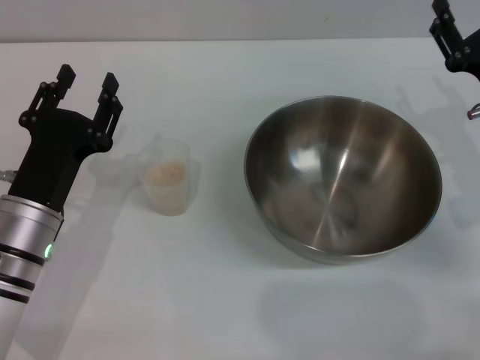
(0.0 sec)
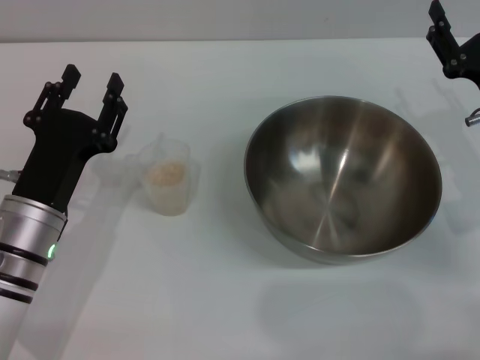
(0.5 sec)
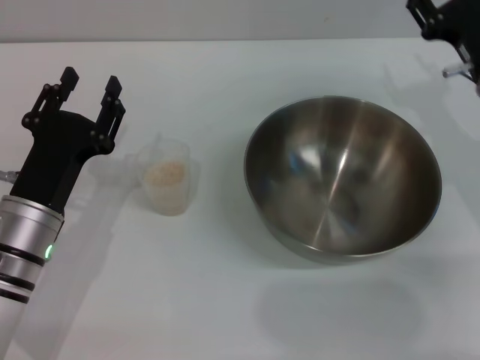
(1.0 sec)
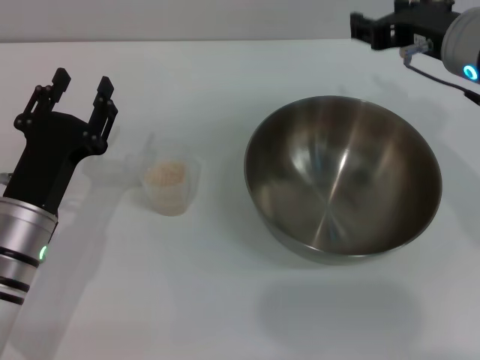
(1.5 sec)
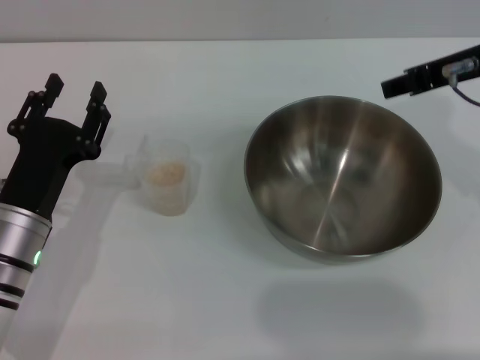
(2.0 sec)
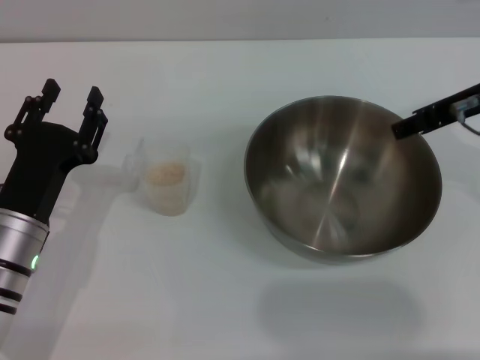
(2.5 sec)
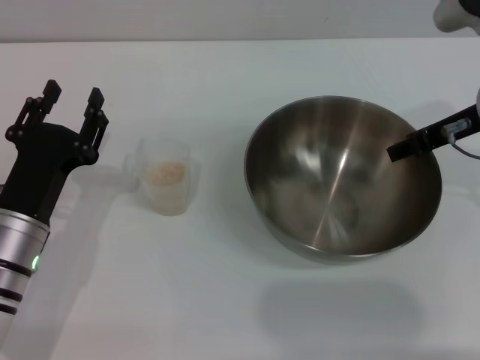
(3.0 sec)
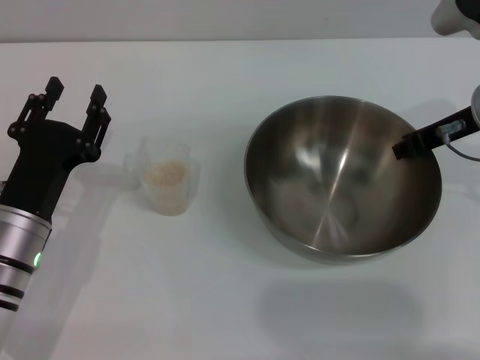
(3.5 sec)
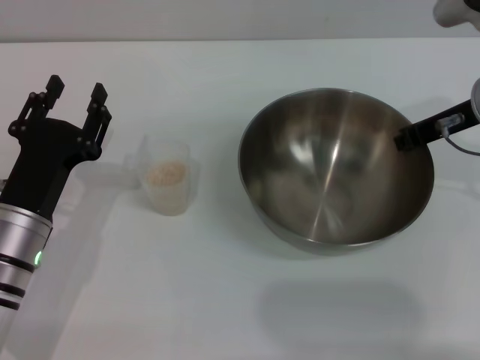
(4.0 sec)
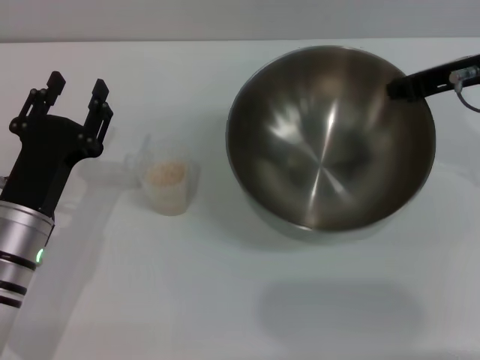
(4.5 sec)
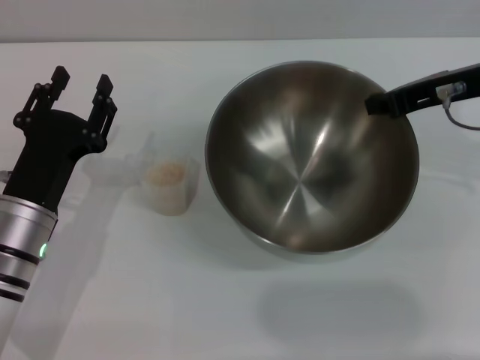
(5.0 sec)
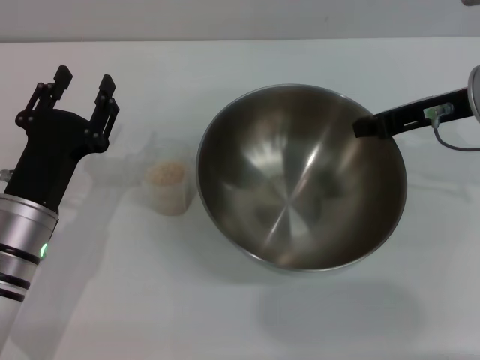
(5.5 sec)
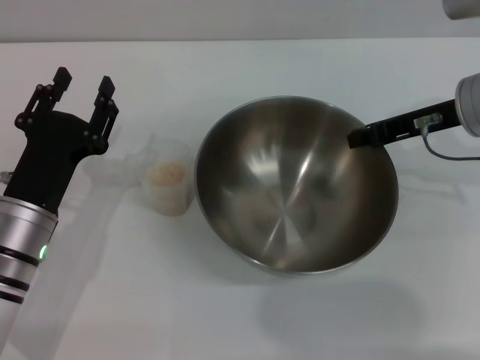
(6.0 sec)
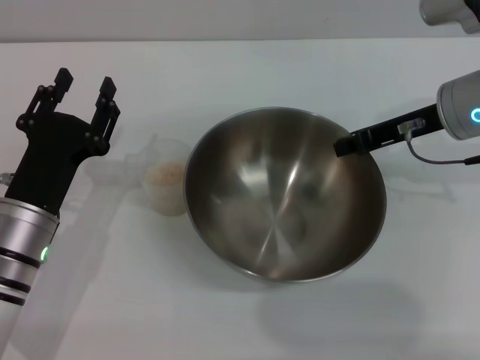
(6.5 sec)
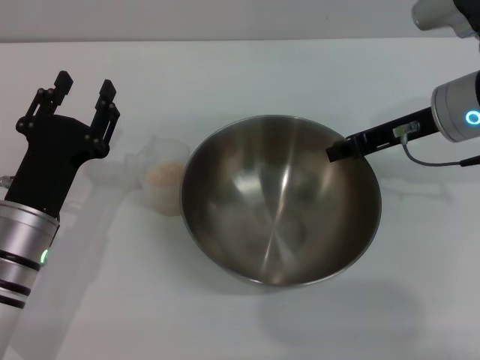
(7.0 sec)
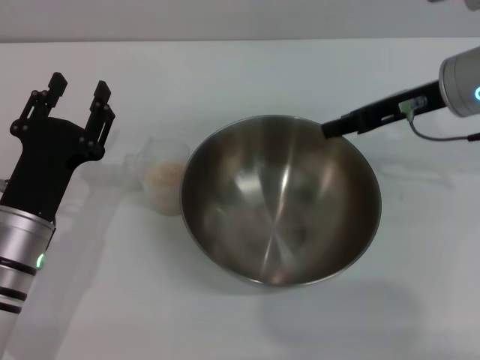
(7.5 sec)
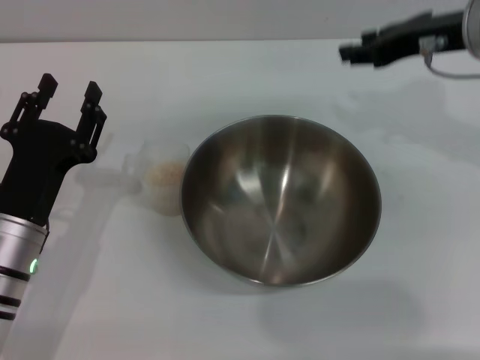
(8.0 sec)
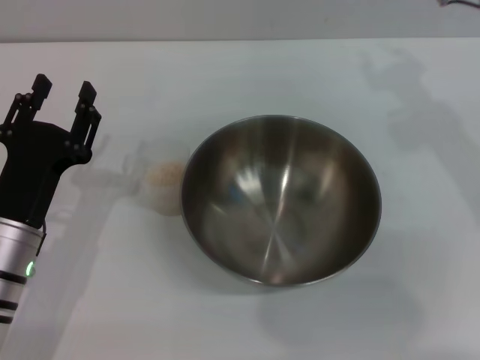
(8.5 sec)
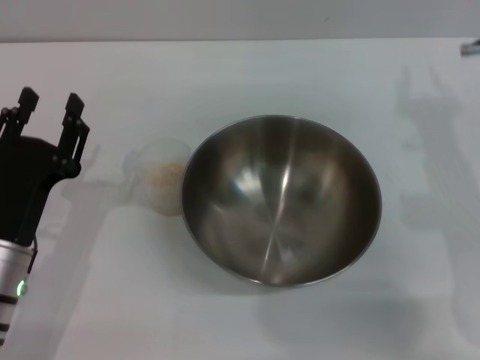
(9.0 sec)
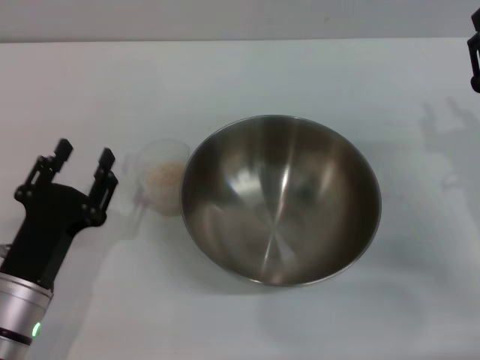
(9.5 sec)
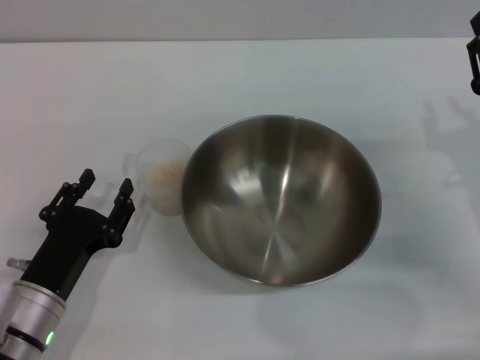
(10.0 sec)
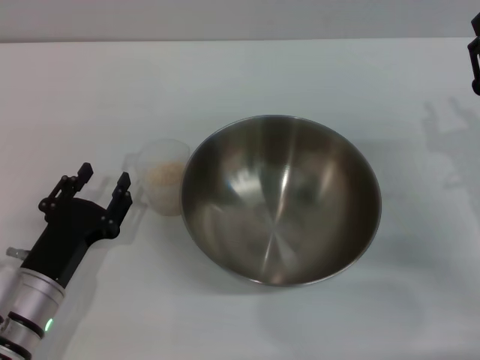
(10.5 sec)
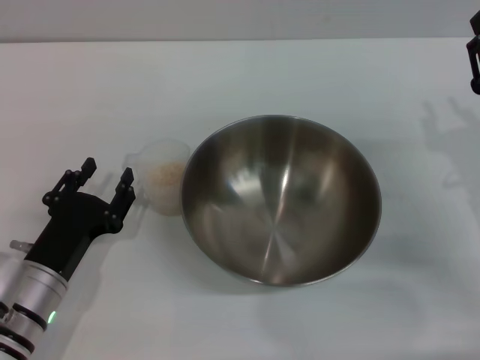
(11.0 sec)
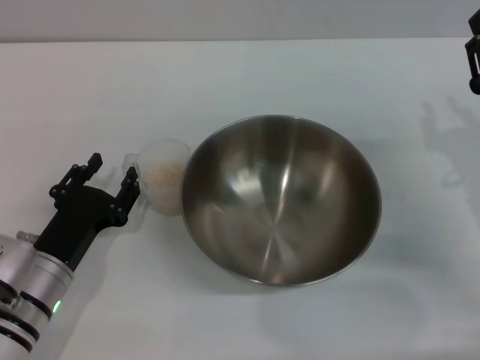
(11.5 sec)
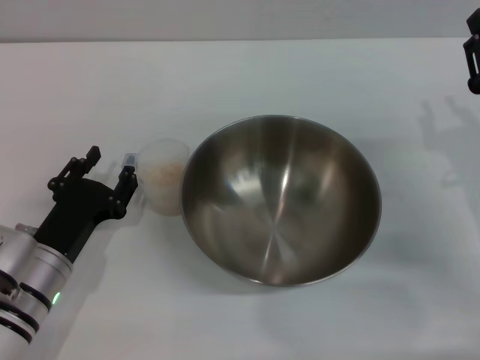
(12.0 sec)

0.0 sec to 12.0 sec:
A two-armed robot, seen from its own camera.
Task of the whole recording: Place the bowl in the middle of the table with one hand and pour the rice from the grain cup into it with the other hand.
Step, 0.0 sec to 4.0 sec: Pick up the bowl with the right gripper.
Step, 4.5 sec to 7.5 sec: Place the bowl in the center of view with the right gripper.
0.0 sec to 2.0 sec: The right gripper goes about 15 cm upward.
2.0 sec to 4.0 sec: The right gripper shifts approximately 5 cm downward, and closes its fingers.
6.0 sec to 8.0 sec: The right gripper travels upward by some 5 cm, and opens its fingers.
8.0 sec to 10.0 sec: The left gripper changes place by approximately 5 cm. Meanwhile the right gripper goes some 20 cm downward and backward.
10.0 sec to 12.0 sec: The grippers make only small movements.

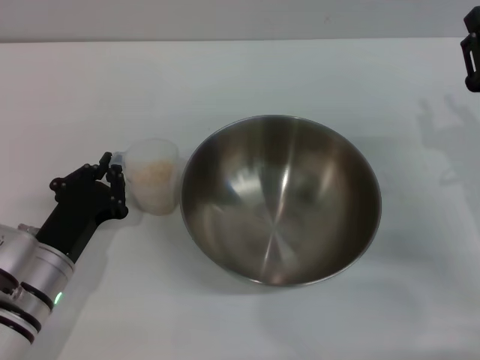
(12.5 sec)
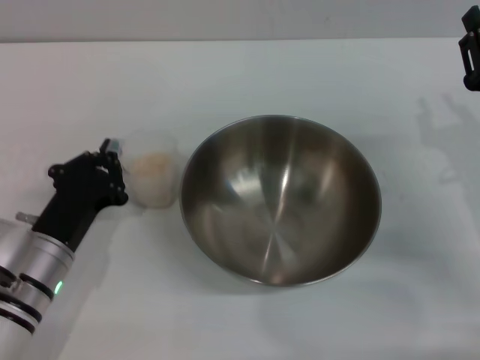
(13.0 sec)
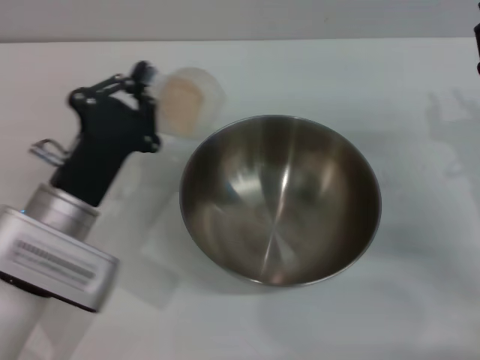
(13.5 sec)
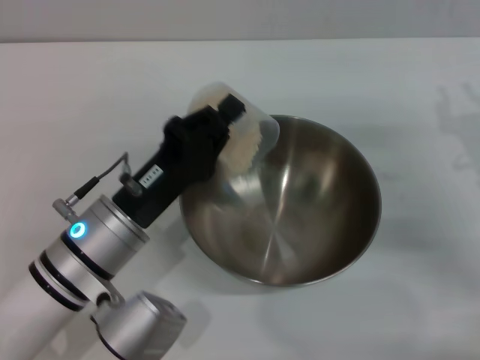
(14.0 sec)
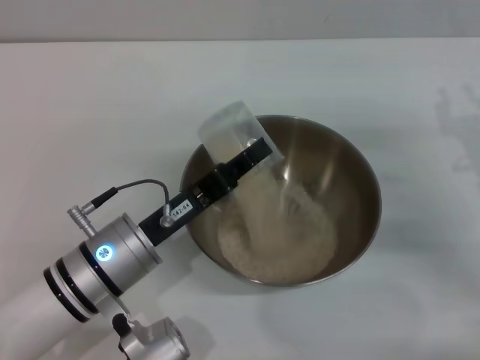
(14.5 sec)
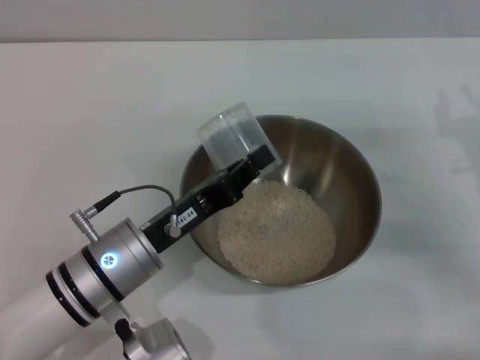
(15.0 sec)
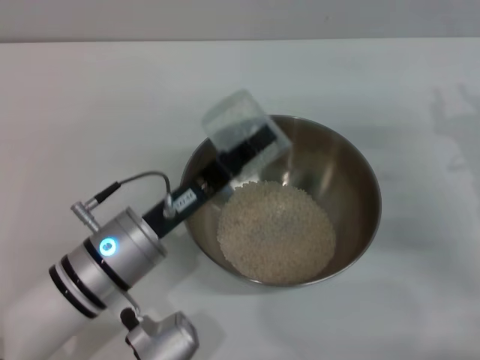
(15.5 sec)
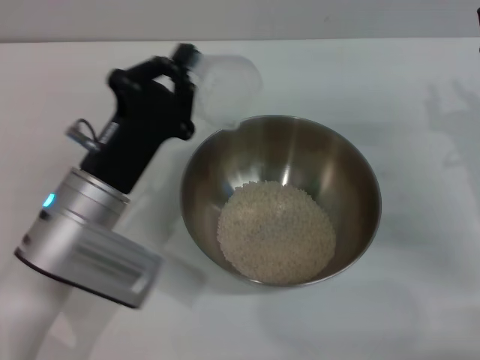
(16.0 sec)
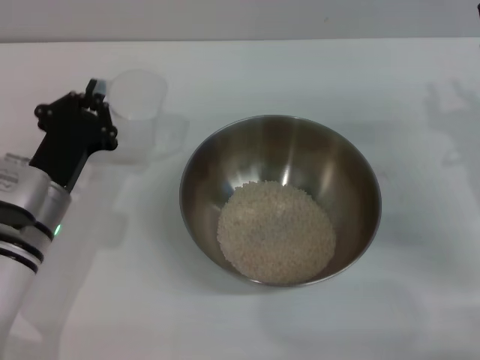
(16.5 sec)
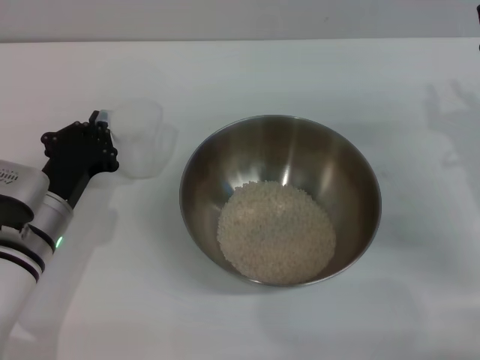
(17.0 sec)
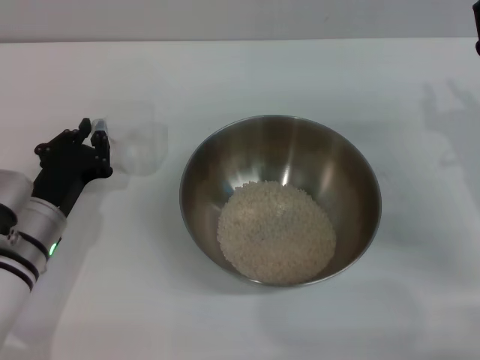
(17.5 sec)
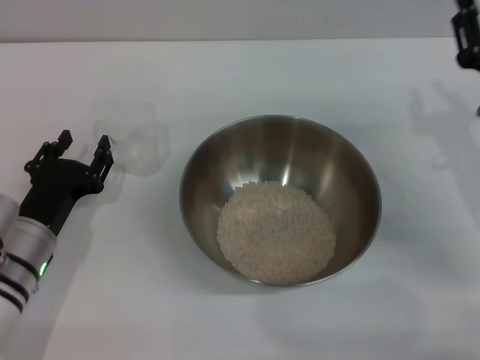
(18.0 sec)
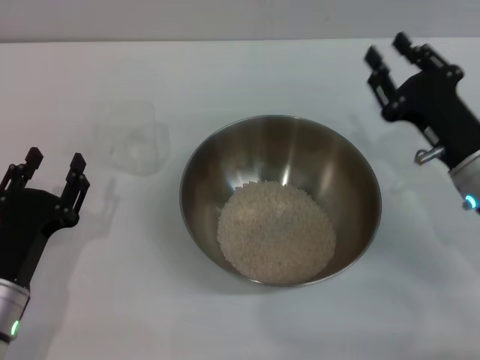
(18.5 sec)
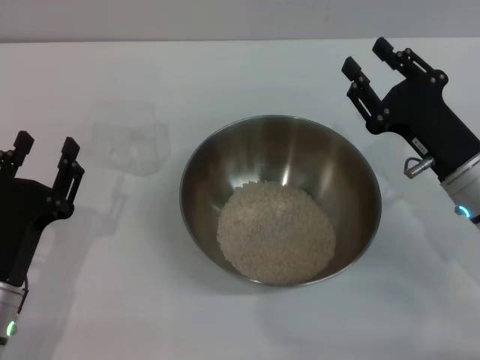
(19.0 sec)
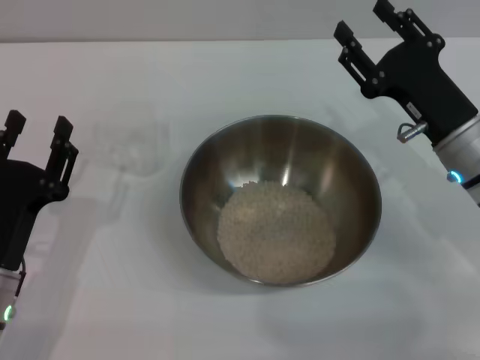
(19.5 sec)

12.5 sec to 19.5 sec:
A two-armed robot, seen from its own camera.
Task of the whole recording: Place the bowl in the middle of the table with one hand and pour the rice from the grain cup into it with the other hand.
Step, 13.5 sec to 15.0 sec: Pour the rice from the cup into the bowl with the left gripper.
Step, 16.0 sec to 18.0 sec: Place the cup on the table with the left gripper.
12.5 sec to 14.5 sec: The left gripper is displaced to the right by some 5 cm, and closes.
16.0 sec to 17.5 sec: The left gripper moves to the left and downward, about 10 cm.
17.5 sec to 19.5 sec: The left gripper travels backward by some 10 cm, and opens its fingers. The right gripper goes approximately 5 cm to the left.
